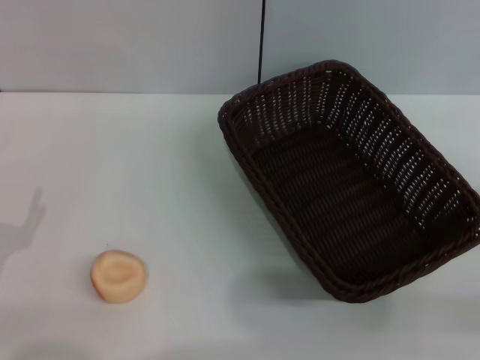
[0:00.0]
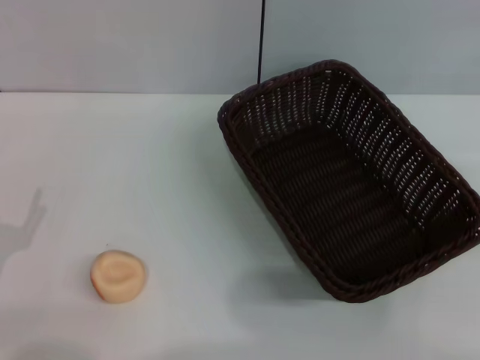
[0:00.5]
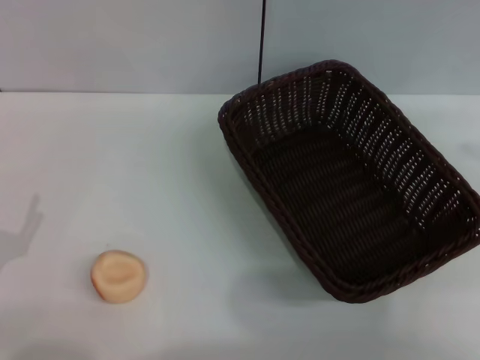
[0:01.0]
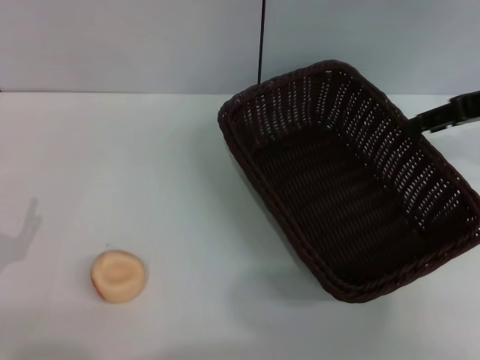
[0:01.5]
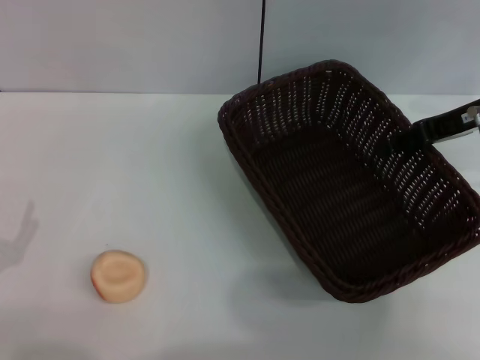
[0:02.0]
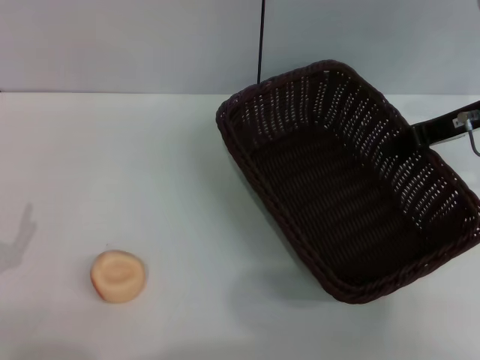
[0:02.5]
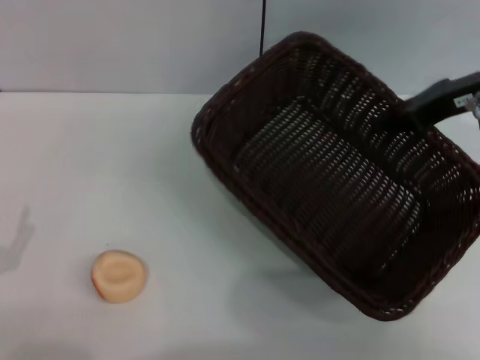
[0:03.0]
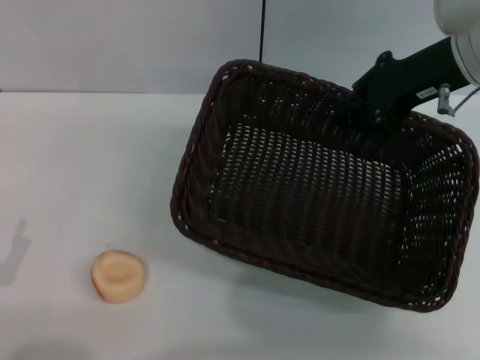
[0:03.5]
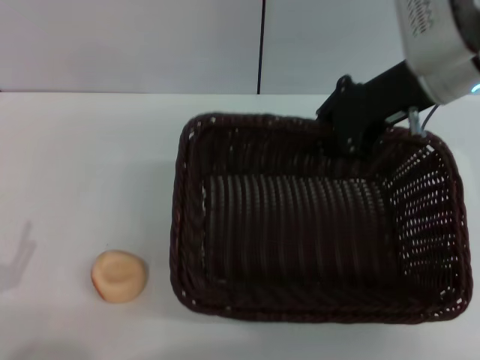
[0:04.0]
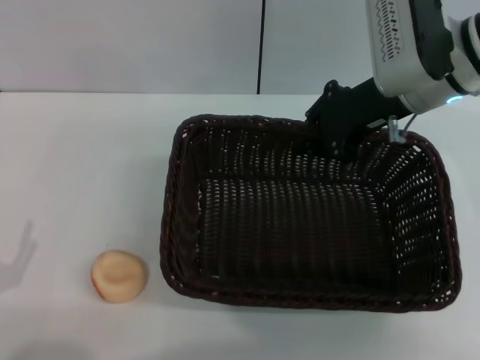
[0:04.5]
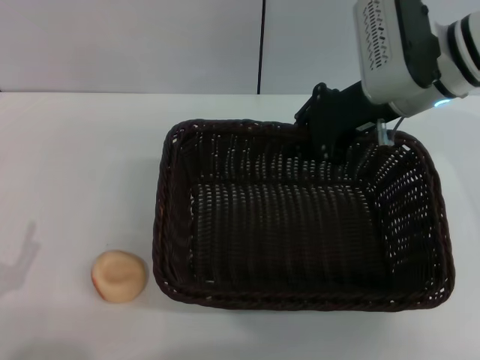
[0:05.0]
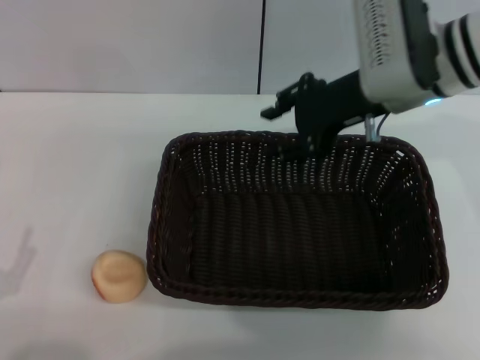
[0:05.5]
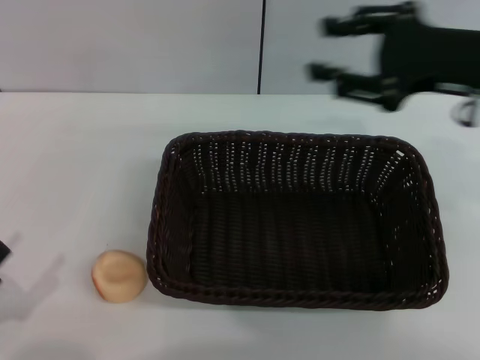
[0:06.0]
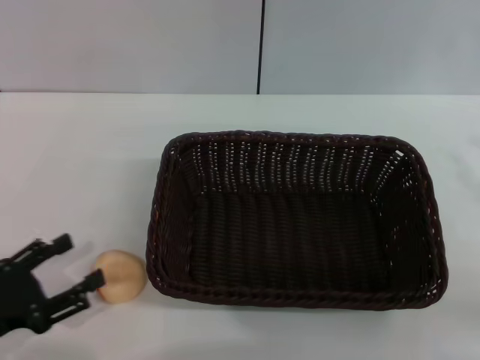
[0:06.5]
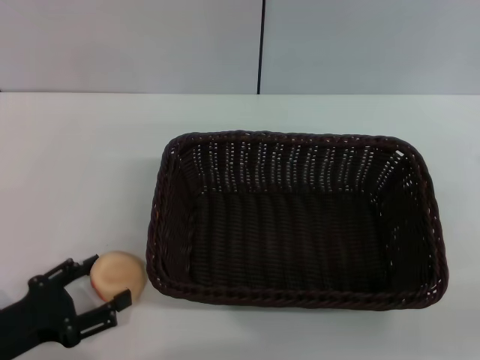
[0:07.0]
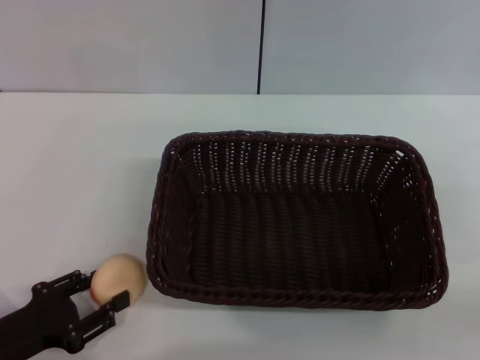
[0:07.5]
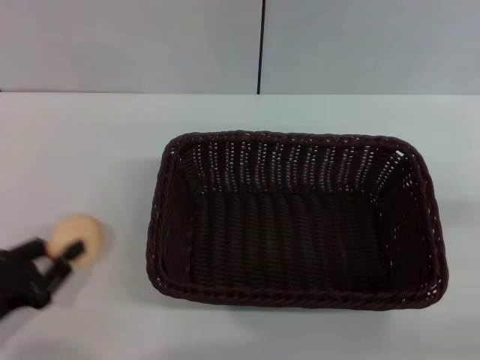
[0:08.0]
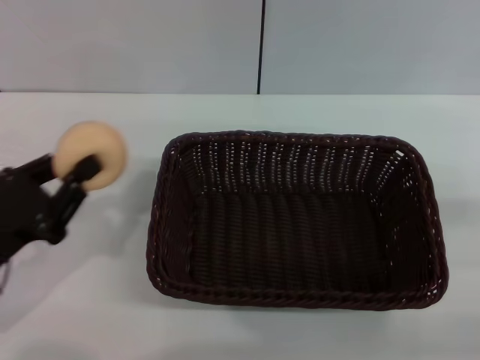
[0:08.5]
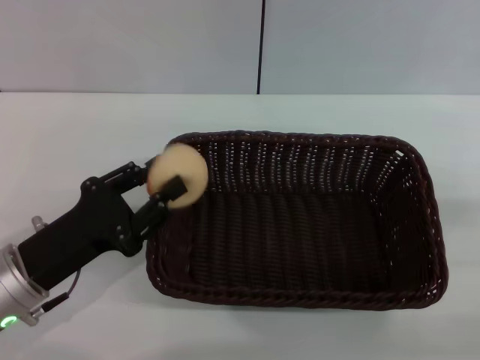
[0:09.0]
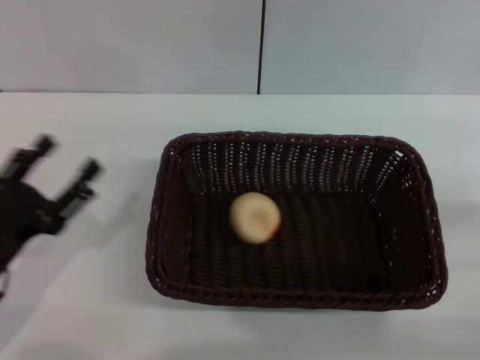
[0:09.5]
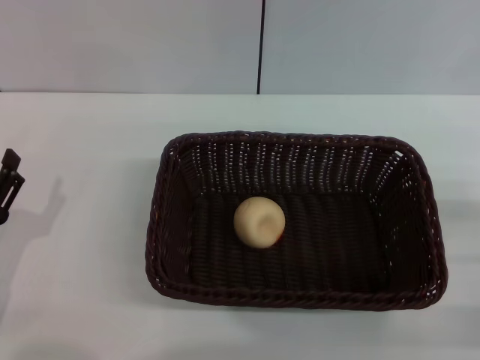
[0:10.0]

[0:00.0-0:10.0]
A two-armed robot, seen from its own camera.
Step, 0:00.0 to 0:05.5: Move the basket to the center of view with the right gripper.
Step, 0:06.0 to 0:08.0: Pick up the egg yolk pastry with the left gripper.
Step, 0:08.5 to 0:09.0: Place the egg yolk pastry into the basket with the left gripper.
0:00.0 to 0:02.0: The right gripper moves forward, to the left and upward, roughly 25 cm.
0:02.0 to 0:04.0: The right gripper is displaced to the left by some 10 cm, and closes up.
0:04.0 to 0:06.0: The right gripper goes roughly 10 cm backward and to the right, and opens.
0:06.0 to 0:08.0: The right gripper goes approximately 25 cm to the right, backward and downward, while the left gripper moves forward, approximately 5 cm, and closes its fingers.
0:08.0 to 0:10.0: The left gripper goes to the right and returns, approximately 10 cm each way, and opens its fingers. Meanwhile the right gripper moves approximately 5 cm.

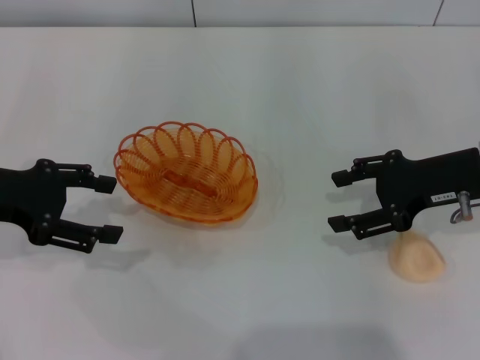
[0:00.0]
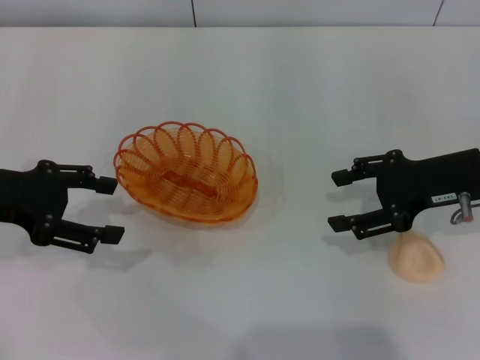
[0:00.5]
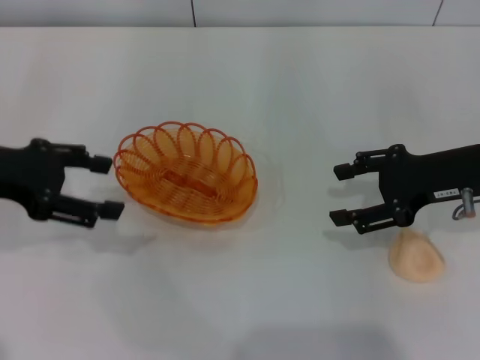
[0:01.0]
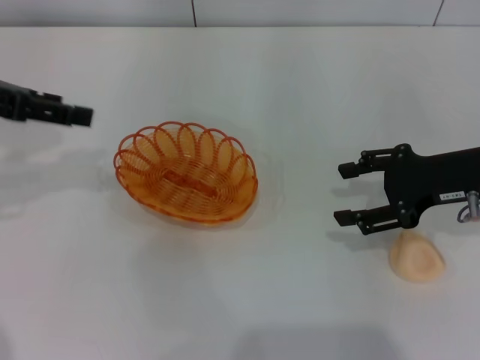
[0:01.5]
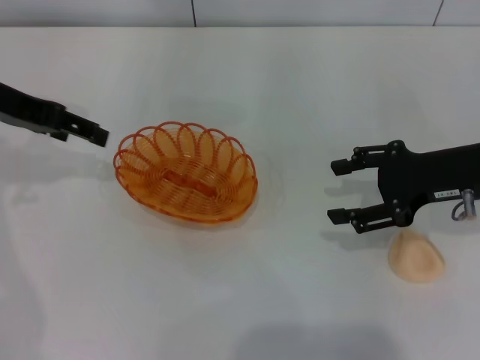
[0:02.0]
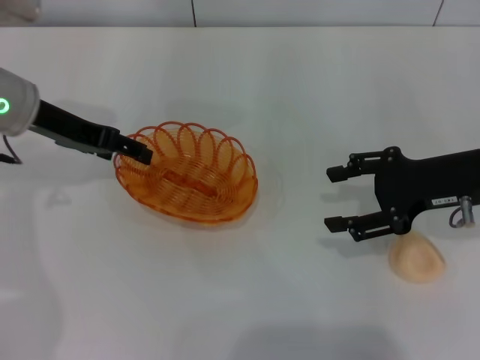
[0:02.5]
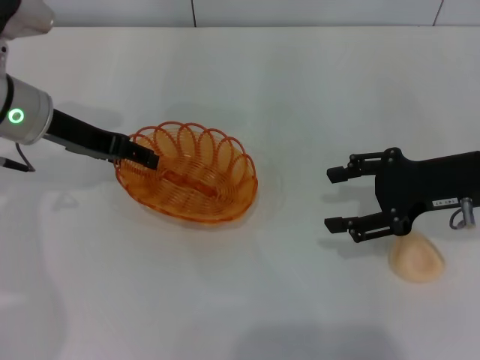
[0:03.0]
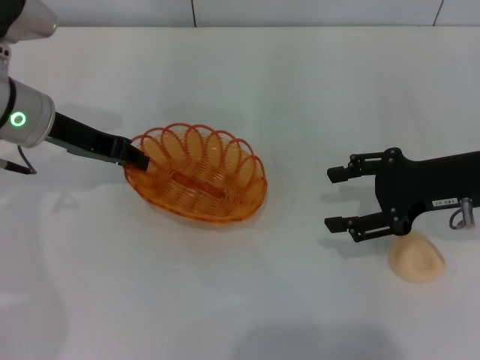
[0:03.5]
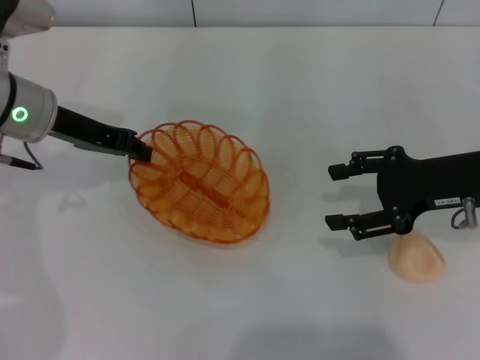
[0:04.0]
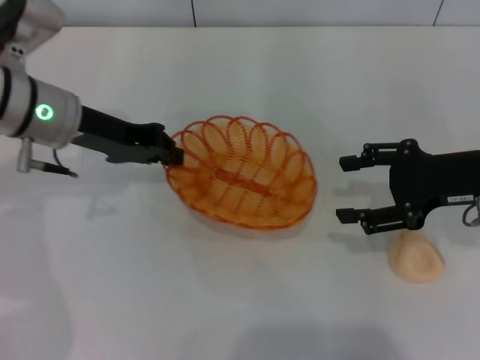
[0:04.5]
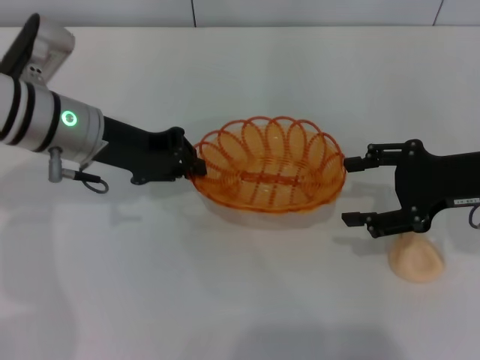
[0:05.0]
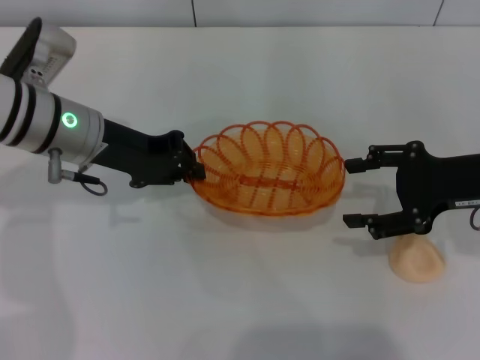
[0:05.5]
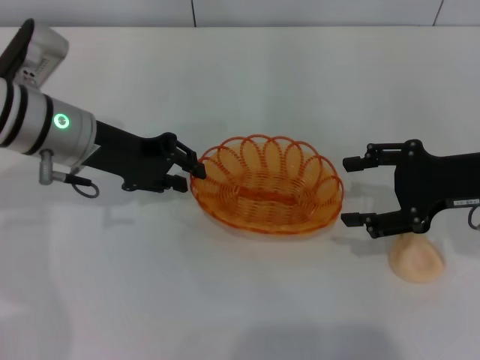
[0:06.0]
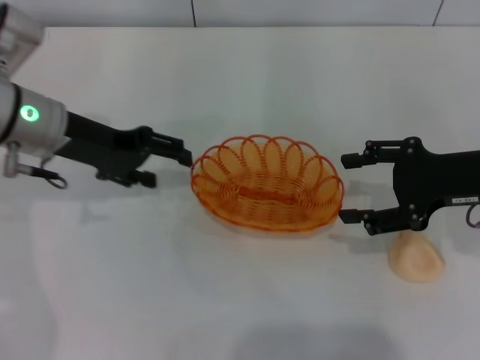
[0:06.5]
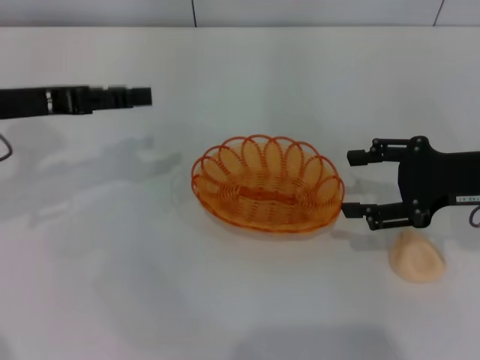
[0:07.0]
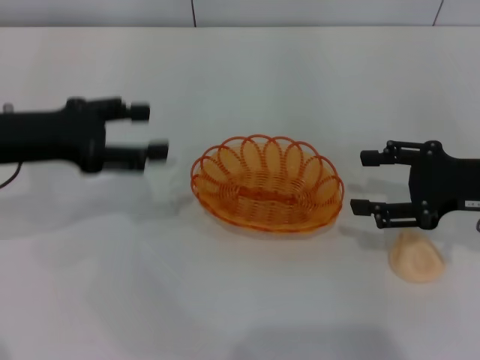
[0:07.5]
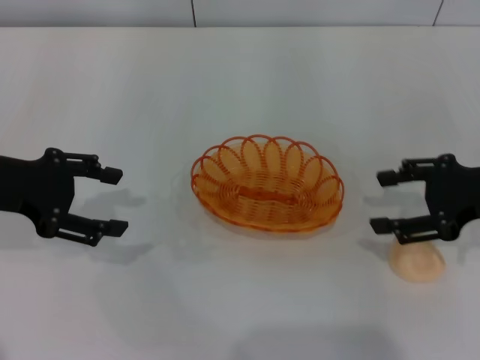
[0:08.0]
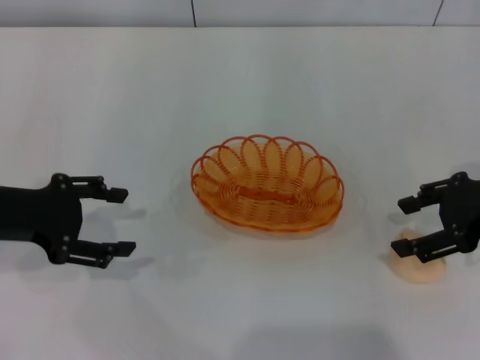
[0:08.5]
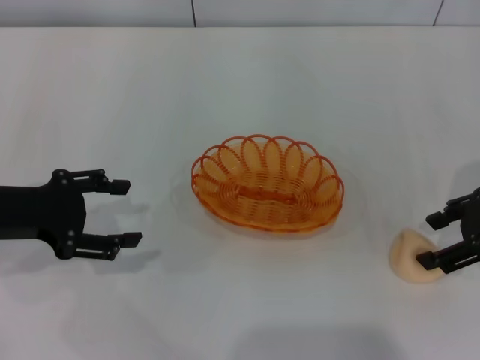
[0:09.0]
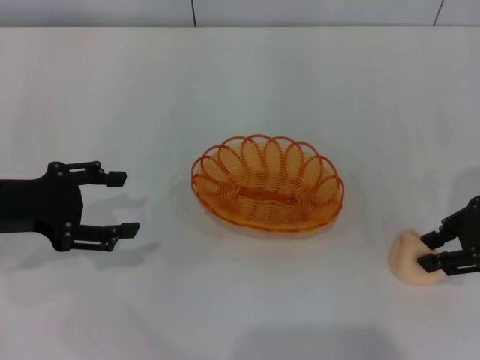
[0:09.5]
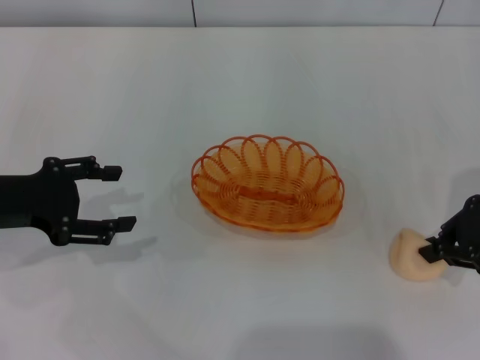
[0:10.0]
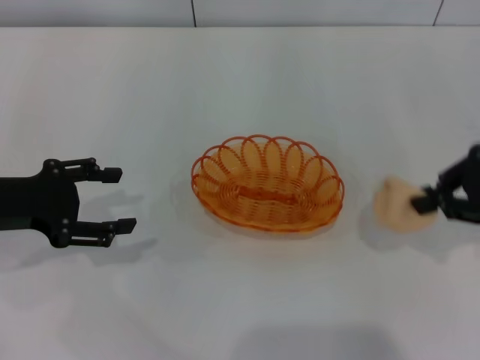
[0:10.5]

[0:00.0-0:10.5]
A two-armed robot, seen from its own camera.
Step, 0:00.0 to 0:04.0: Pick up the basket with the left gripper.
Step, 0:04.5 to 0:06.5: Place the basket in the center of view with the left gripper.
0:00.0 to 0:02.0: The left gripper is displaced forward and upward by about 10 cm.
0:02.0 to 0:04.0: The left gripper goes approximately 10 cm downward and to the right, and closes its fingers.
0:04.0 to 0:06.5: The left gripper opens.
0:06.5 to 0:08.5: The left gripper is displaced backward and to the left by about 10 cm.
0:08.5 to 0:10.5: The right gripper closes its fingers.

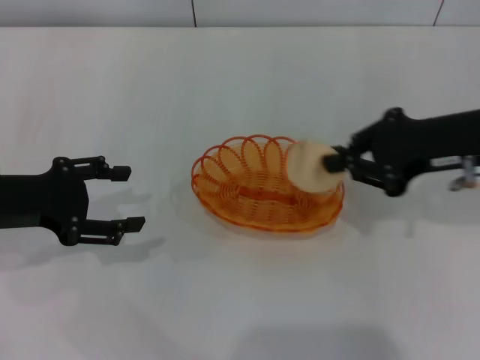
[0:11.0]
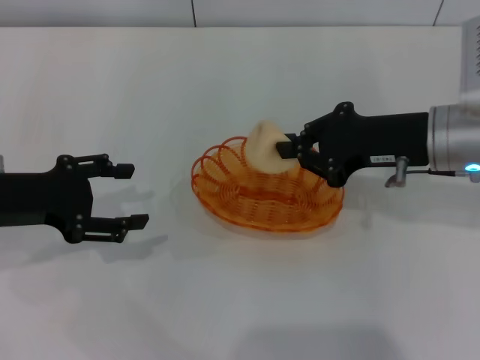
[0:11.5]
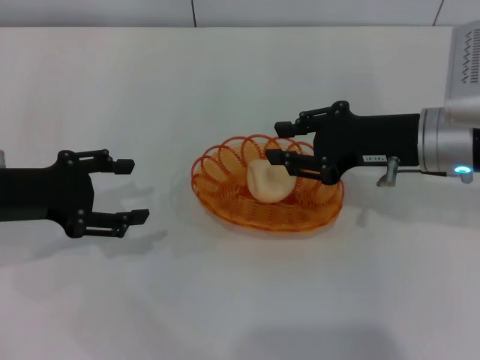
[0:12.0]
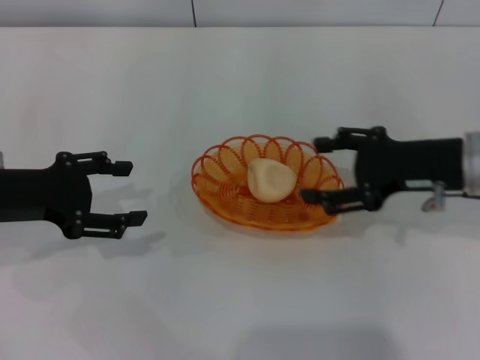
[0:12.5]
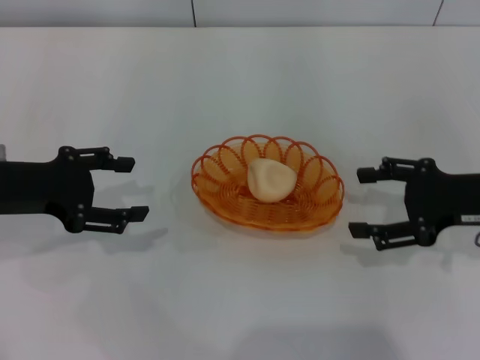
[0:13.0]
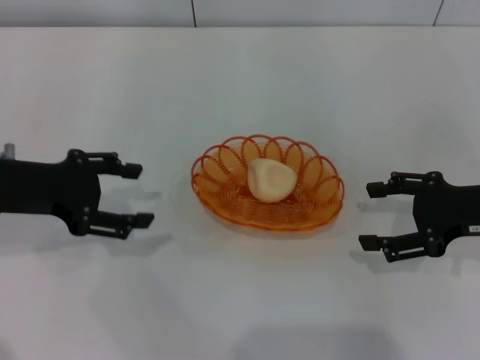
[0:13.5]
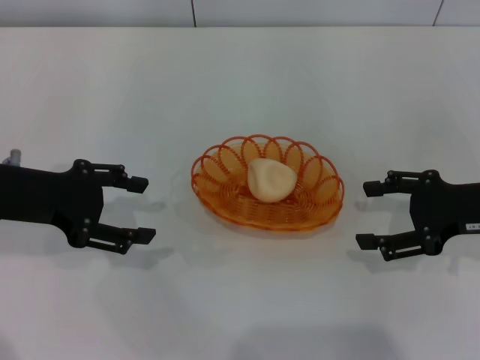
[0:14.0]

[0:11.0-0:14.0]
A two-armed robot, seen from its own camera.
Step, 0:11.0 to 0:12.5: Place the egg yolk pastry into the basket with the right gripper.
0:11.0 to 0:12.5: The right gripper opens.
0:12.5 to 0:14.0: The right gripper is displaced to the right by about 5 cm.
